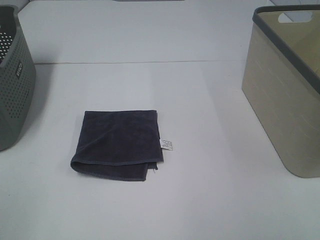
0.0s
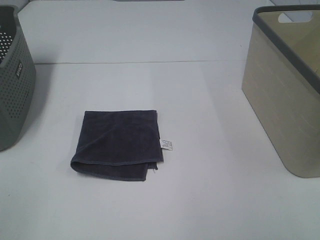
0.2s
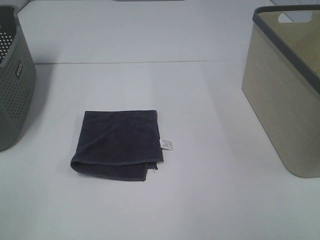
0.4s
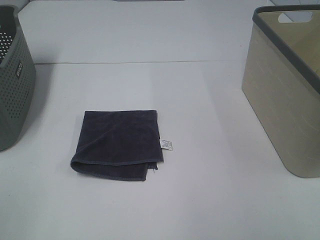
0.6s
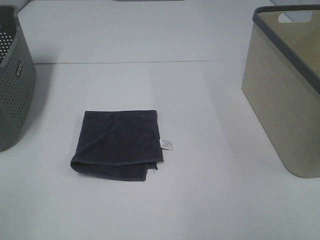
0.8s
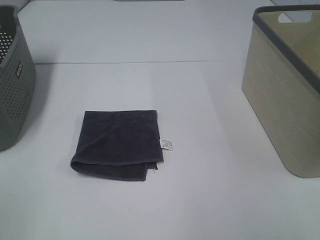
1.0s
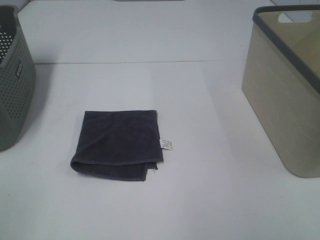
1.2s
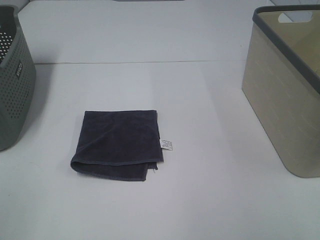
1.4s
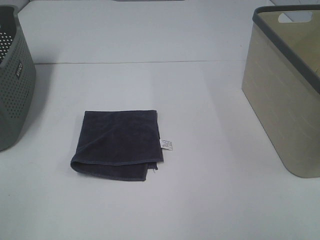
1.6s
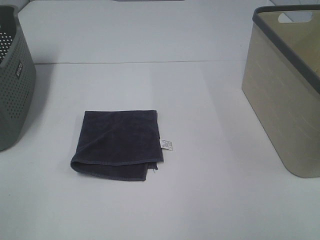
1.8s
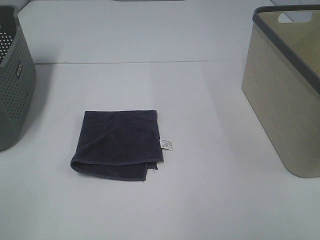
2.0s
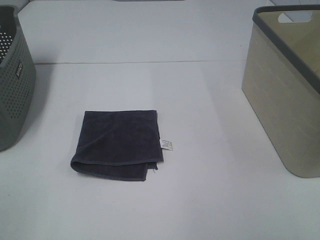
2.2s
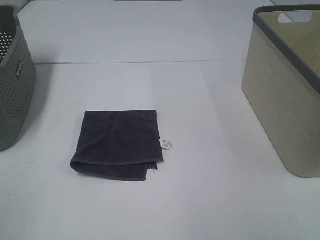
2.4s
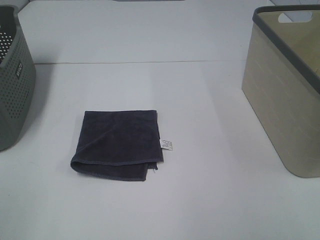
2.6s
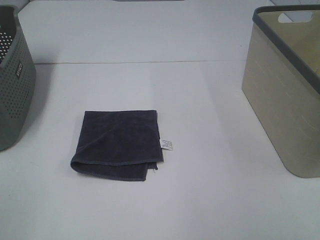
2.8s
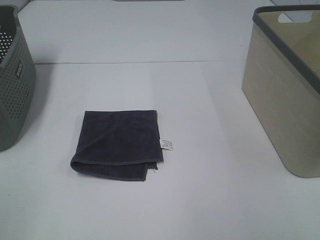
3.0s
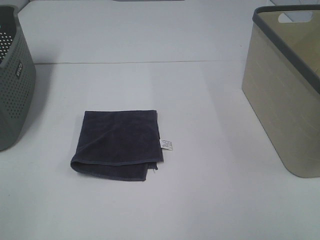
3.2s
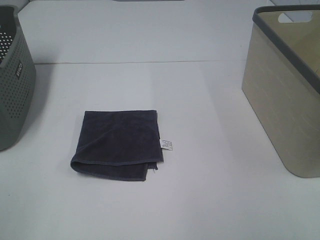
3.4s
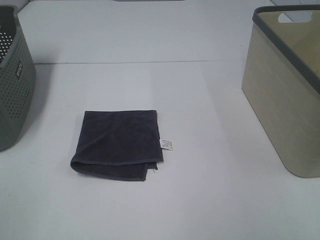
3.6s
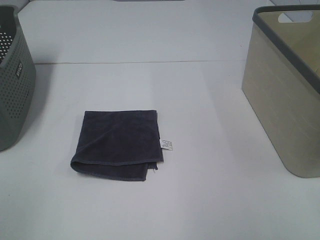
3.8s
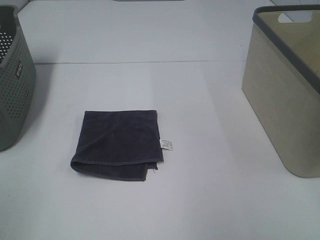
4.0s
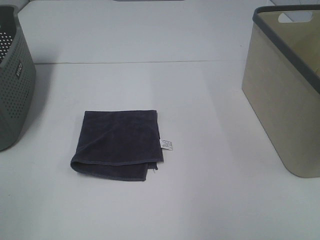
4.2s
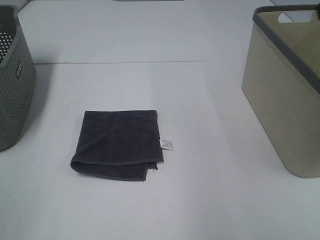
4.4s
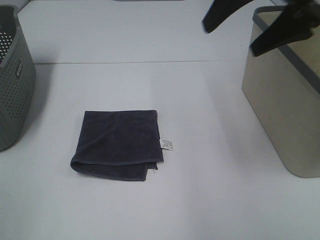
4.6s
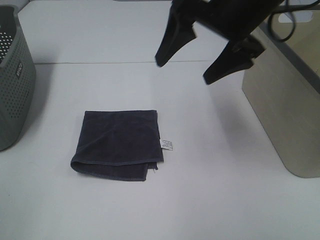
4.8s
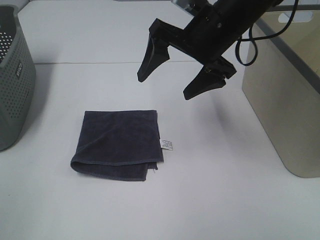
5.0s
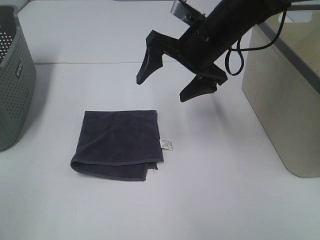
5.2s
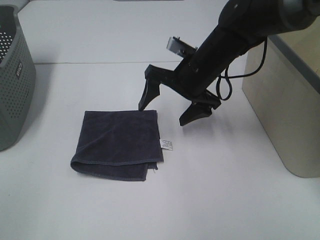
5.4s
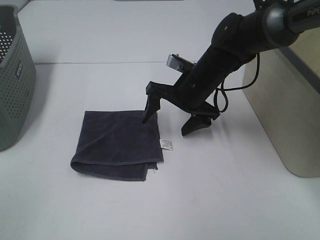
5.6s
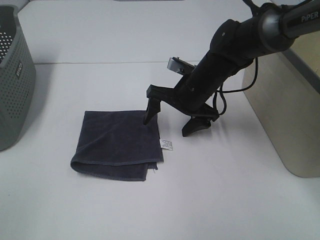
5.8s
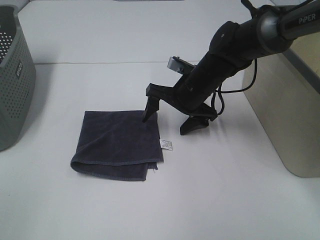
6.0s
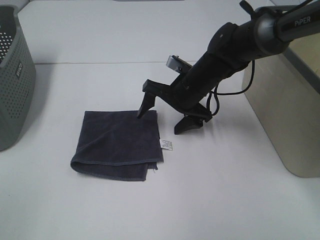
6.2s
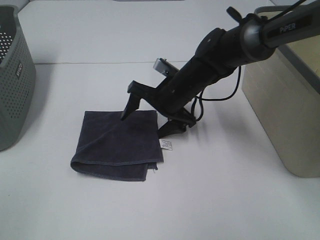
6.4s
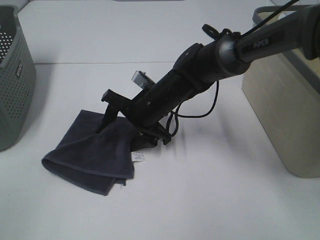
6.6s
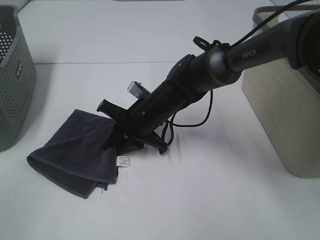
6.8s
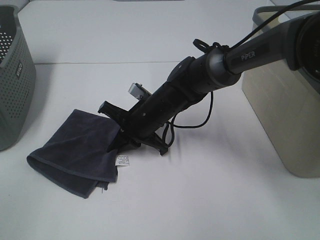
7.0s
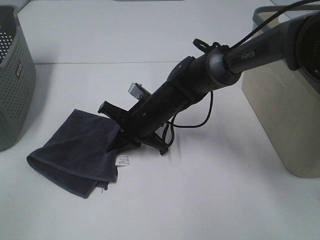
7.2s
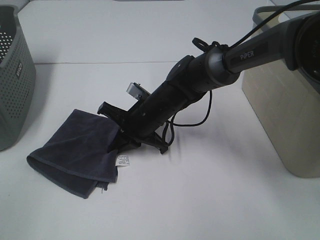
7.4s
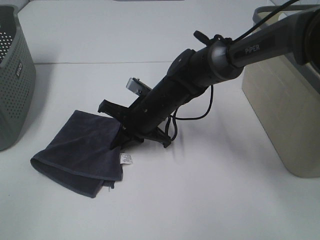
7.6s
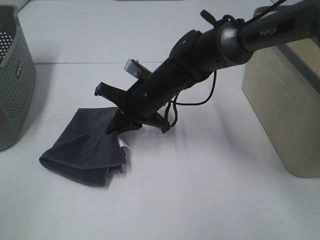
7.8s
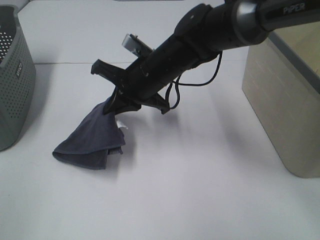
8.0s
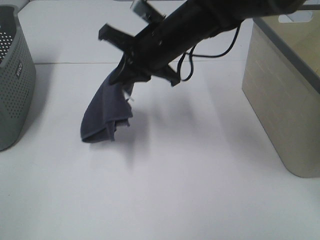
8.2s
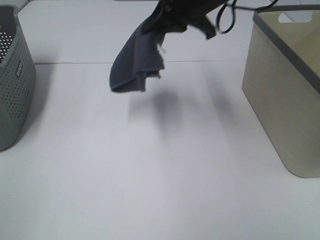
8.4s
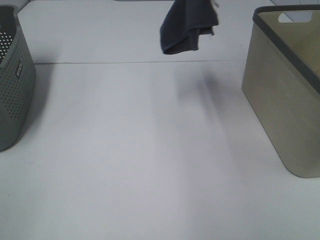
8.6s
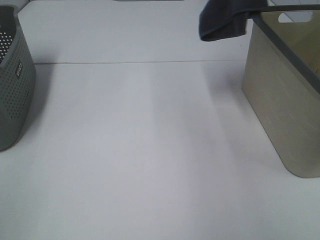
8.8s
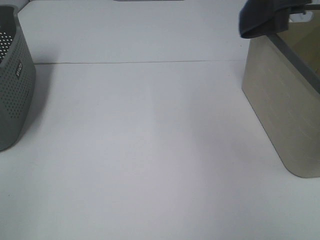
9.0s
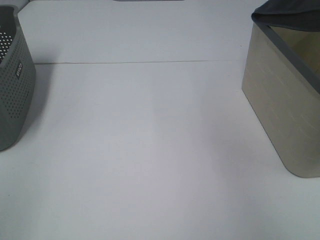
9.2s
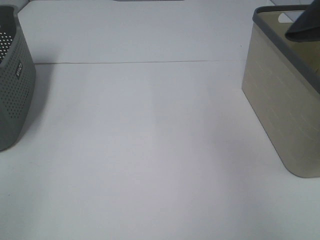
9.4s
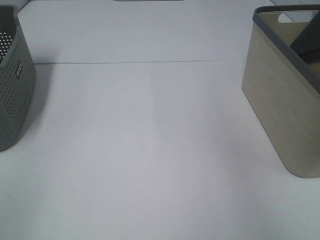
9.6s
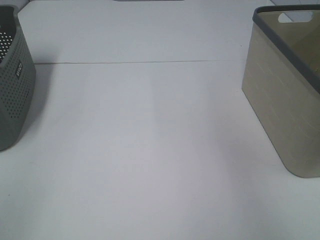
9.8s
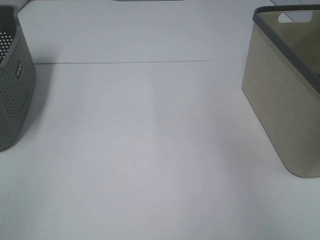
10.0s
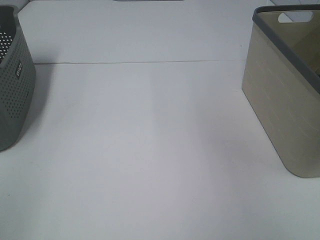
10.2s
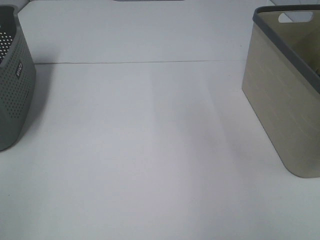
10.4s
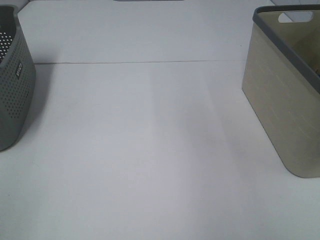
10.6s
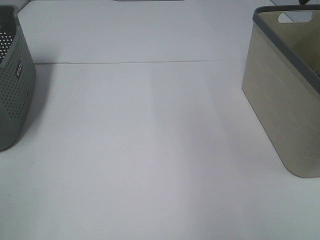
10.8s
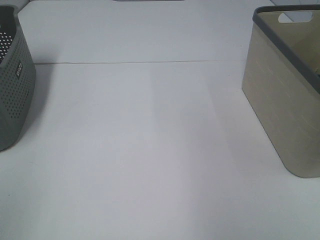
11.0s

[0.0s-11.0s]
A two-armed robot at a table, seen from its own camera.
Step, 0.0s to 7.0s: Right hand: grab the folded grey towel.
Step, 7.2s to 9.8s: Right hand: place the grey towel in right basket.
0.0s to 3.2s: Both grippers stay put.
3.2s to 4.8s: The right gripper travels forward and to the left by roughly 35 cm.
4.8s to 6.2s: The right gripper moves downward, about 20 cm.
6.2s to 7.8s: The right gripper is displaced to the left by approximately 10 cm, and closes.
7.8s to 9.4s: The right gripper heads to the right and upward, covering roughly 40 cm.
9.4s to 11.0s: The right gripper is displaced backward by approximately 20 cm, and opens its fingers.

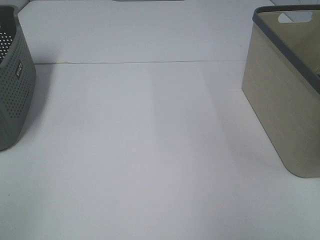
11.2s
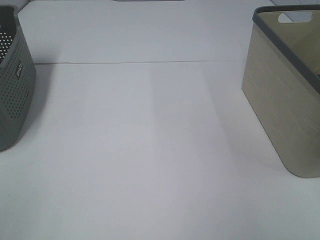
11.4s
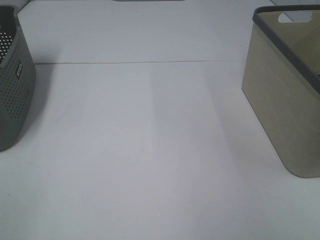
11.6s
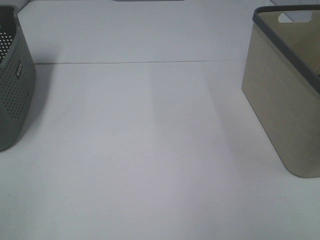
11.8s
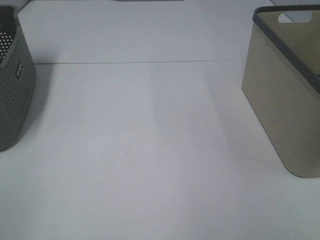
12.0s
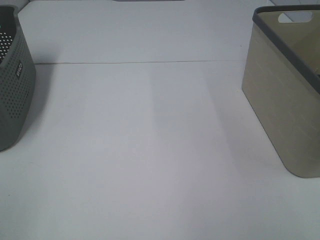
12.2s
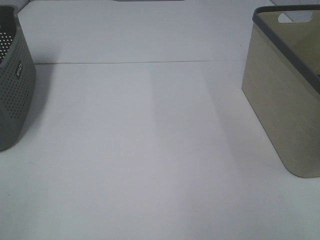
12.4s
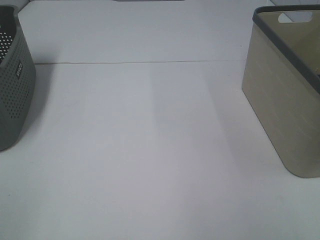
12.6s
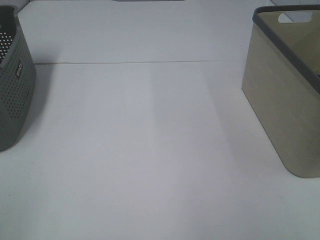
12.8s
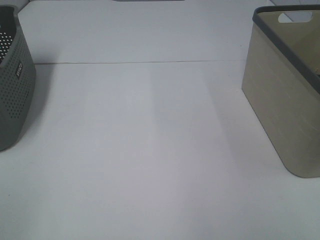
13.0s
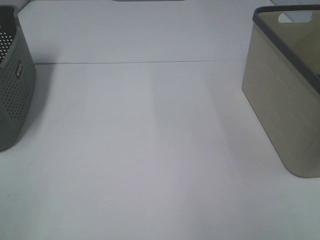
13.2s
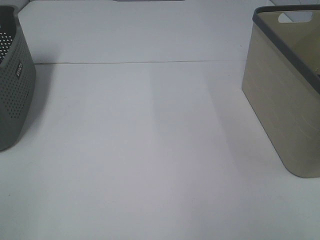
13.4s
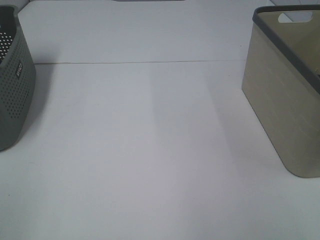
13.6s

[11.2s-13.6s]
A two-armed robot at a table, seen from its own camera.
12.4s to 13.6s: Neither gripper changes place.

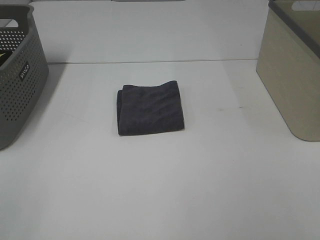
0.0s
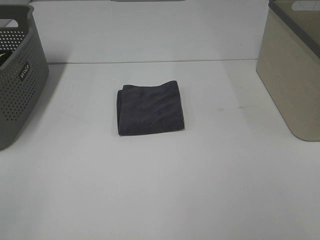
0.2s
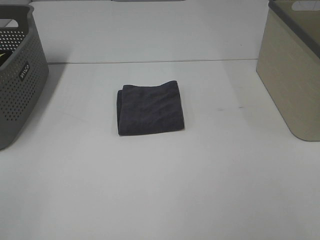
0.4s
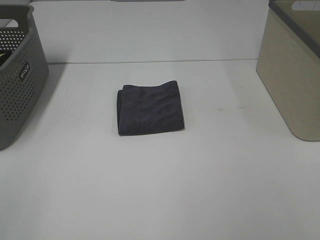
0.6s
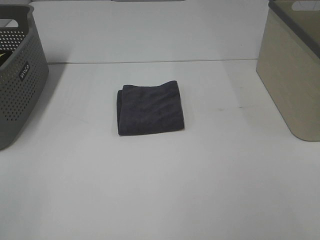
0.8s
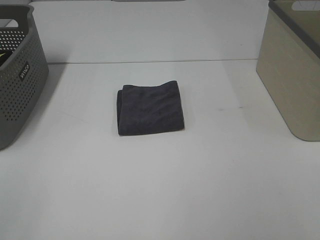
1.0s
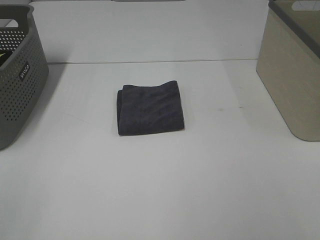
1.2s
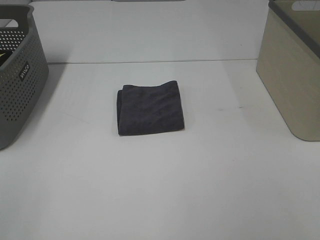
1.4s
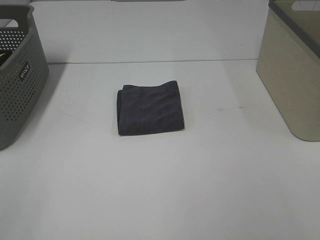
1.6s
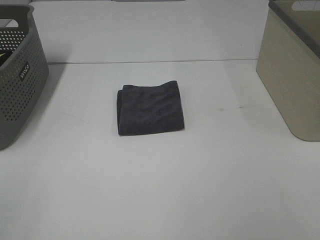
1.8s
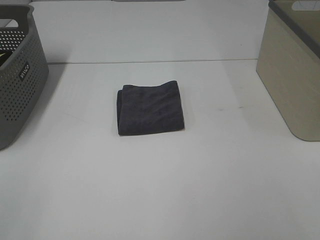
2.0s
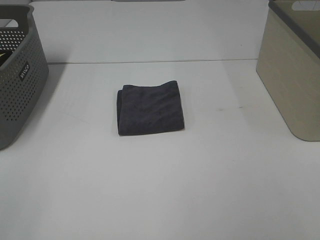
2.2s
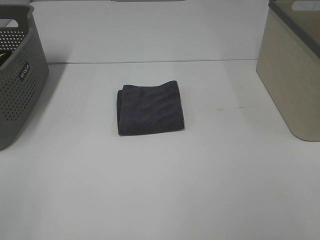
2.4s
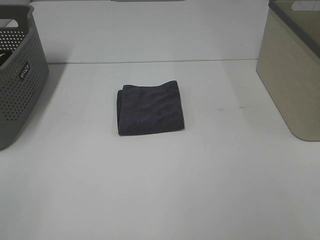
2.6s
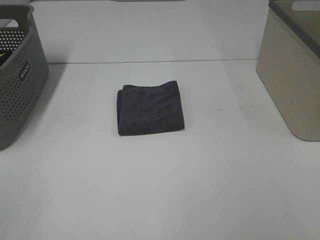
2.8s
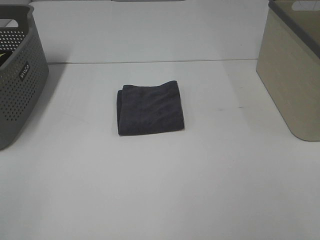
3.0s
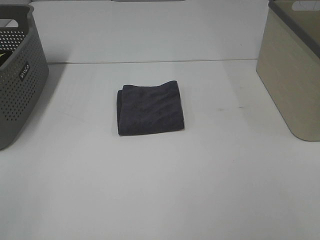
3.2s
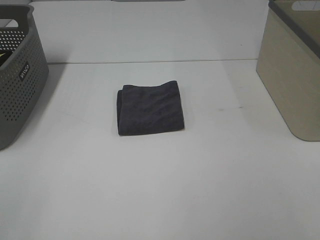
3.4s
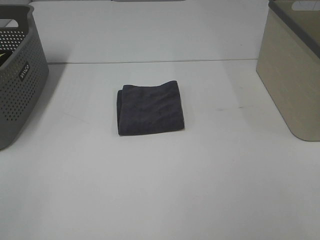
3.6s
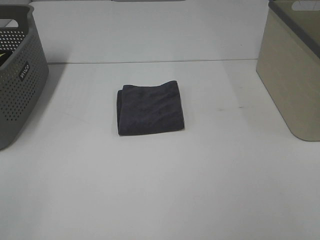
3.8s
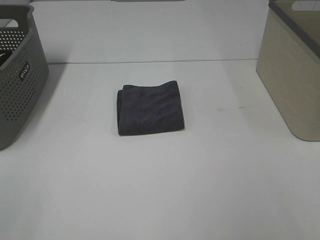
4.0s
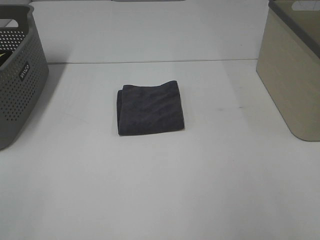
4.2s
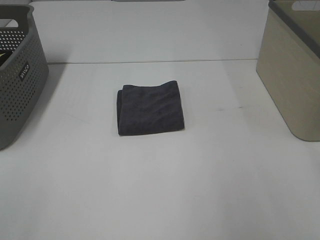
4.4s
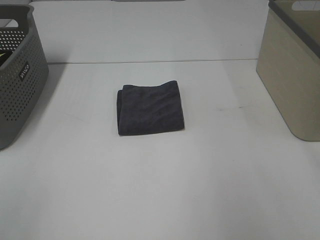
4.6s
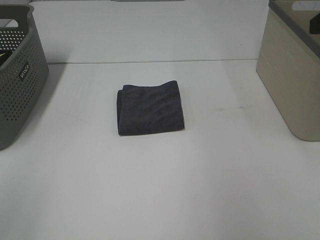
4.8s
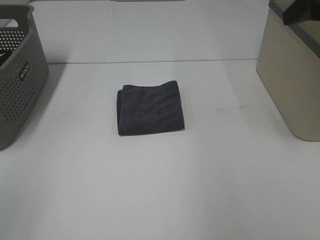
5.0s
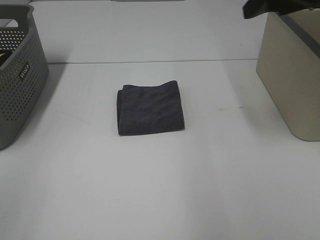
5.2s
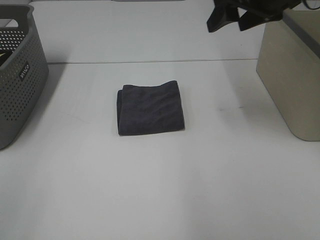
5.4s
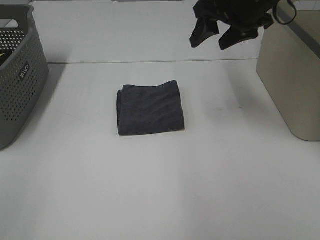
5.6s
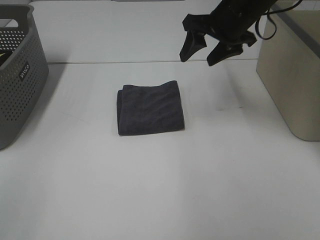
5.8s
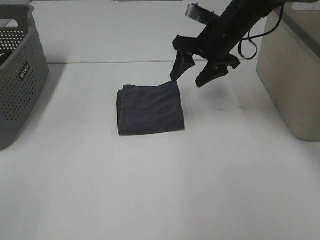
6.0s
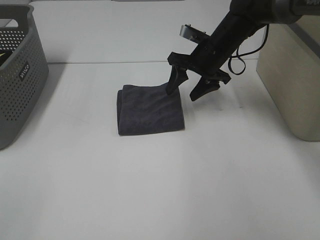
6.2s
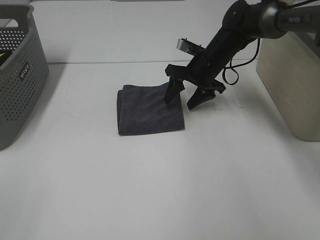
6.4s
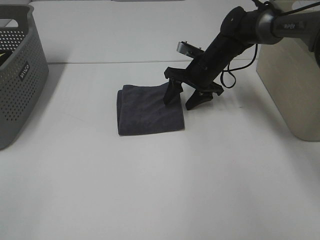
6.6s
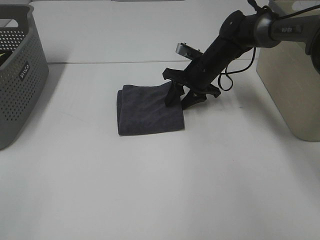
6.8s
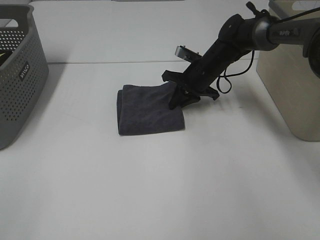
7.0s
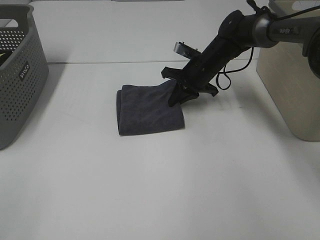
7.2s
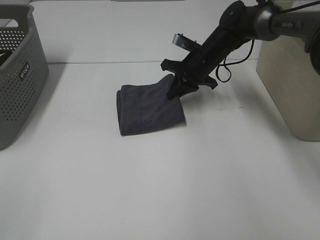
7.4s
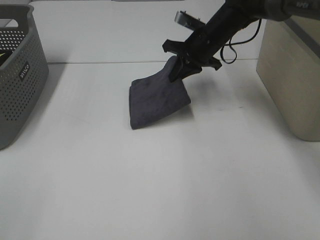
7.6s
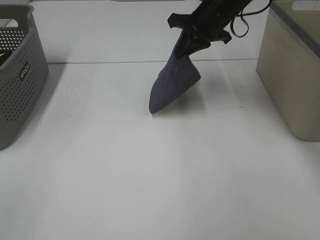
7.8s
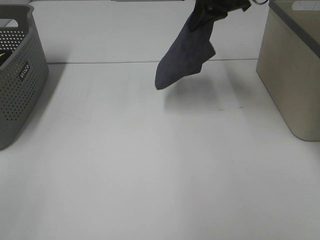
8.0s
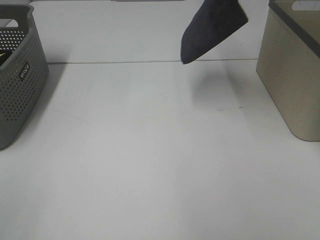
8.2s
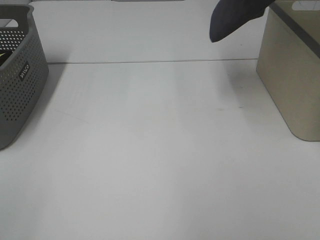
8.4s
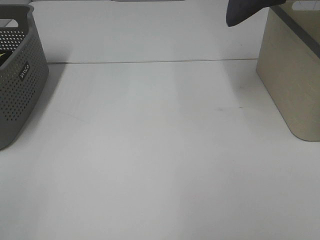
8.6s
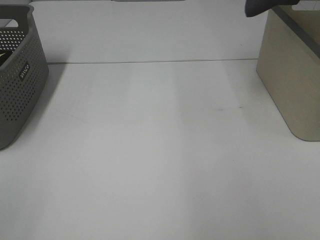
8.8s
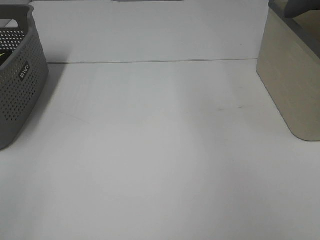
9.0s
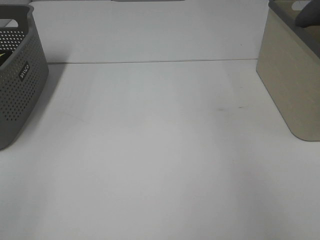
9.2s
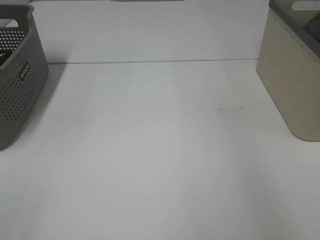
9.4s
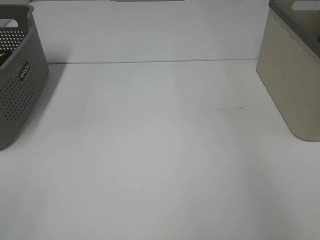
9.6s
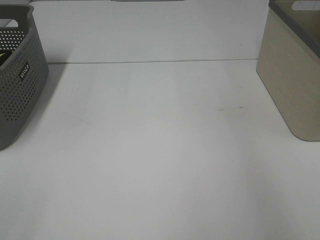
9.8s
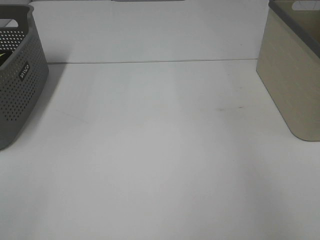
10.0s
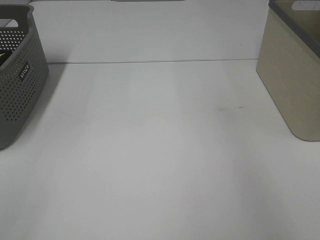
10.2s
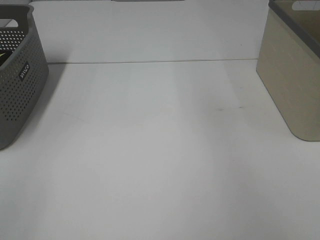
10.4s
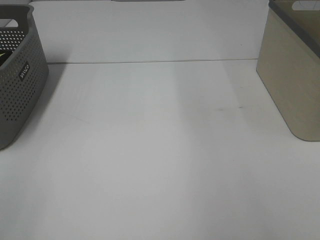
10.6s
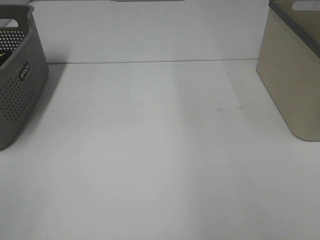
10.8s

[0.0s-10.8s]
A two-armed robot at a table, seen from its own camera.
Step, 0.0s to 7.0s: Right hand: grab the folded grey towel.
Step, 7.2s to 9.8s: Right hand: place the grey towel in right basket.
0.0s to 3.0s: The two grippers keep their place.
4.6s to 6.2s: The right gripper travels forward, downward and to the left by about 35 cm.
6.2s to 7.8s: The right gripper goes approximately 10 cm upward, and closes up.
7.8s to 9.2s: The right gripper heads to the right and upward, covering roughly 30 cm.
